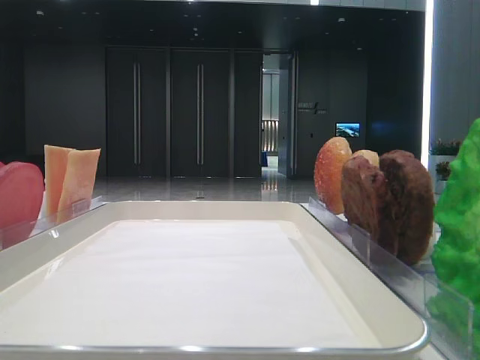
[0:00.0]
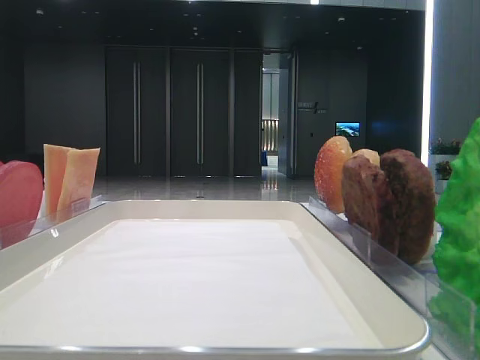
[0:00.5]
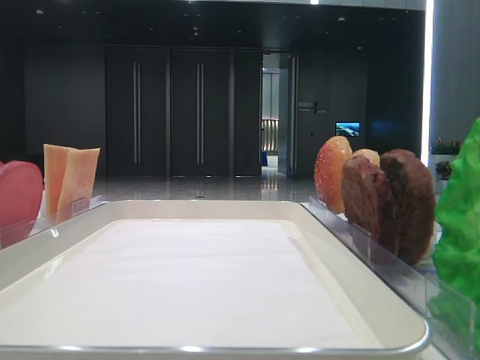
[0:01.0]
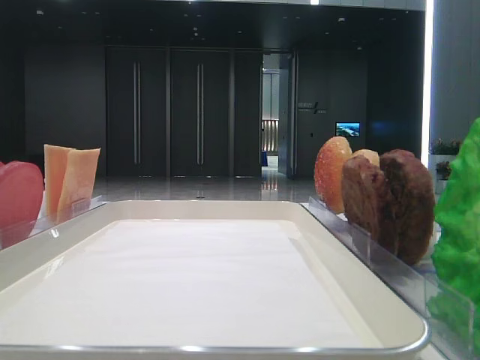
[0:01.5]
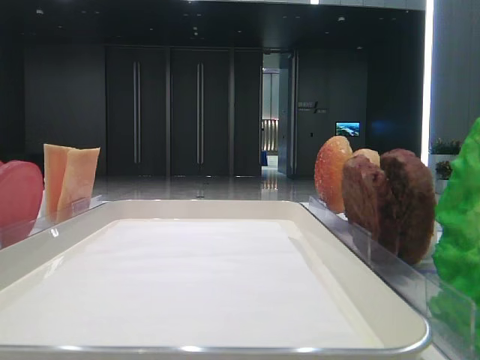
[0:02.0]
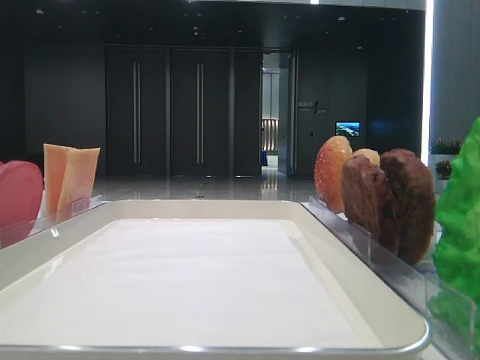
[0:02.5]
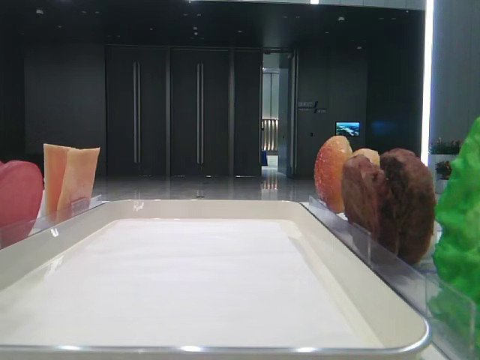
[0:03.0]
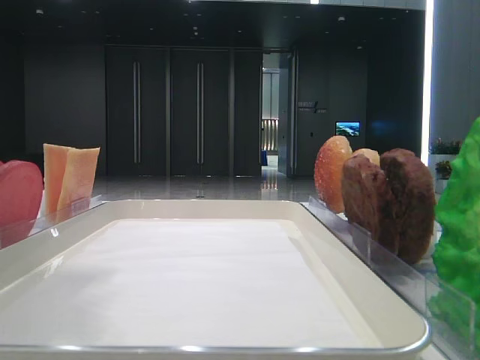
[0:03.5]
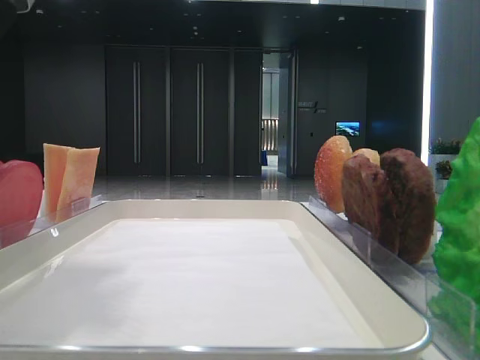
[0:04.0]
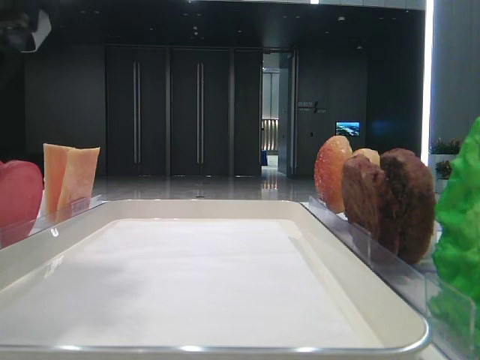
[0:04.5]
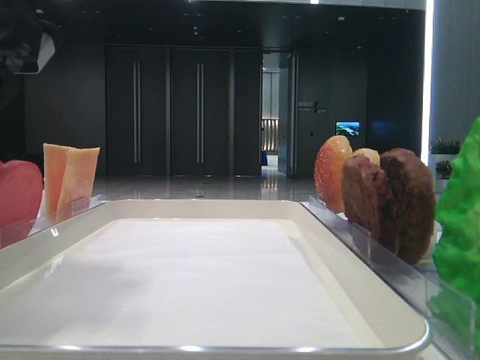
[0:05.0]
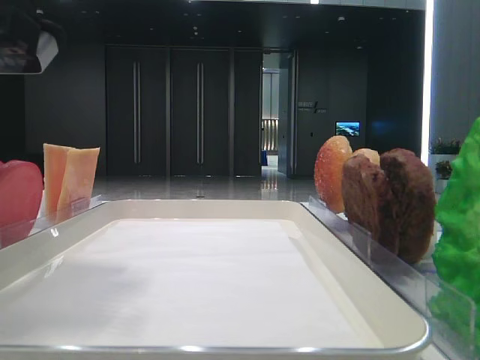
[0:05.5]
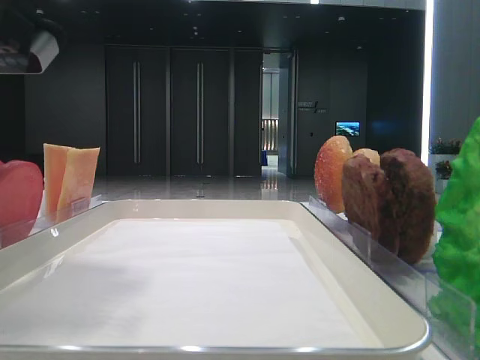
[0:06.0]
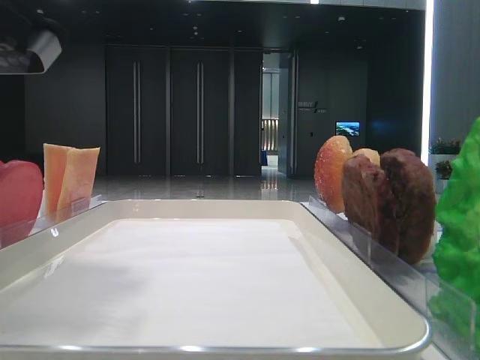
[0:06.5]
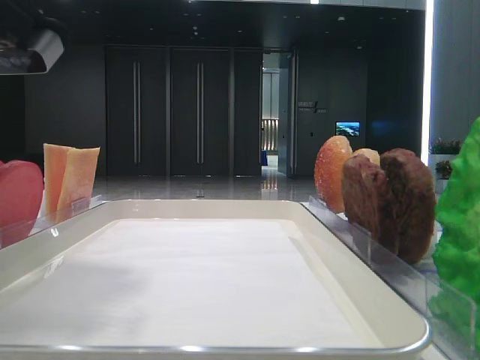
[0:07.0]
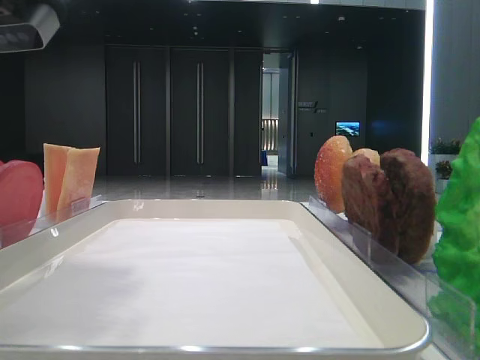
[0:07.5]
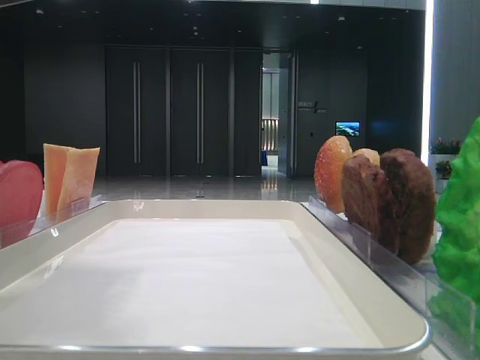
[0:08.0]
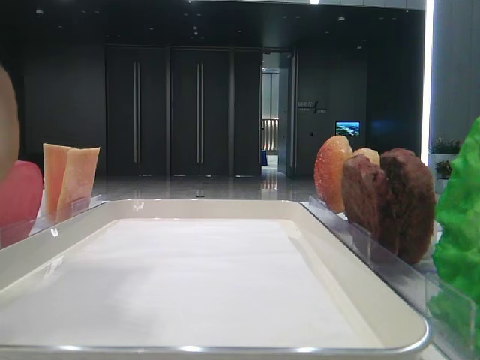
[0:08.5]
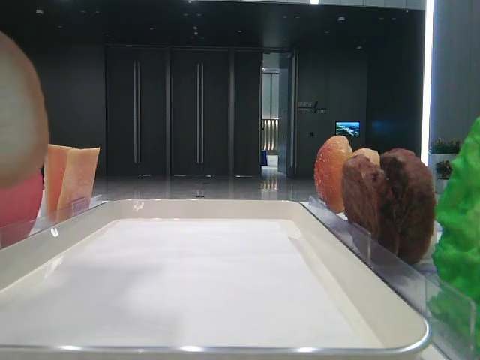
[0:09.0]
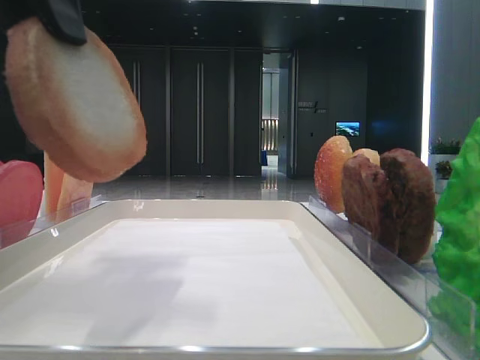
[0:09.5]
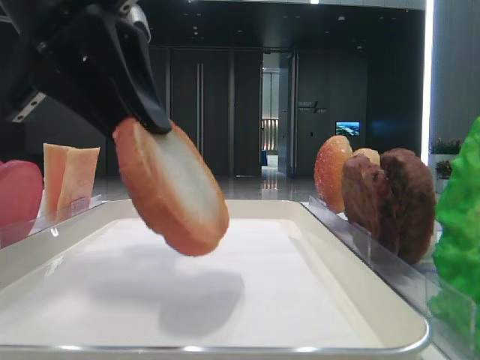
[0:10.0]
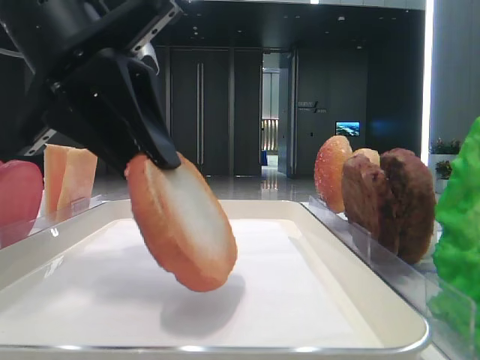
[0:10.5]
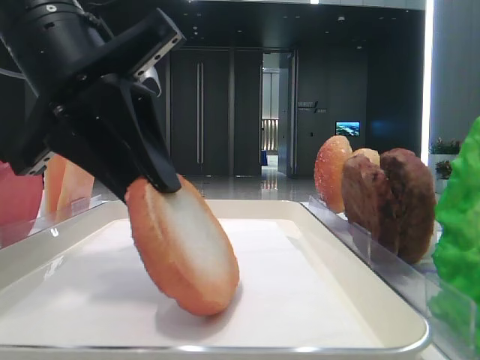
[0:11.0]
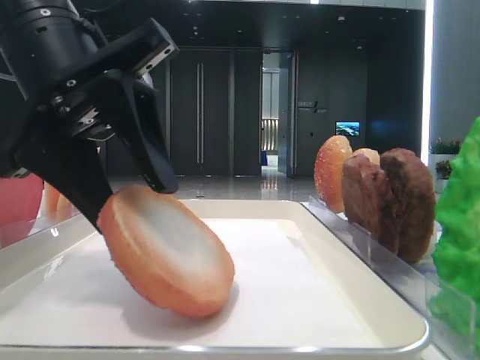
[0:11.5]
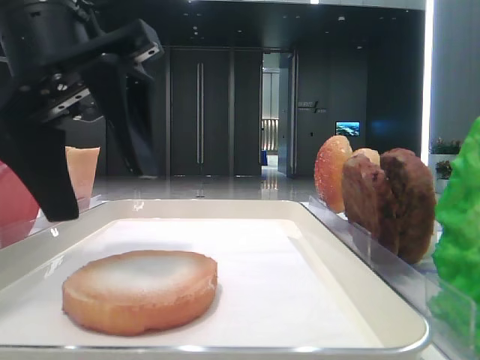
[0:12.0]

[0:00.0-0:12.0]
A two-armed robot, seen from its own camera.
Step, 0:00.0 to 0:07.0: Pick up the bottom bread with the left hand.
Step, 0:07.5 to 0:11.5: Place the bread on the tray with the left hand.
0:02.0 to 0:04.0: The left gripper is displaced to the right and downward by approximately 15 cm.
0:04.0 to 0:06.0: The left gripper closes its fingers.
0:08.0 to 0:10.0: The left gripper goes some 5 cm forward.
0:10.0 to 0:12.0: The left gripper opens.

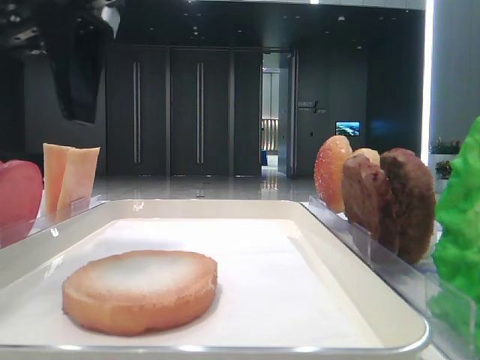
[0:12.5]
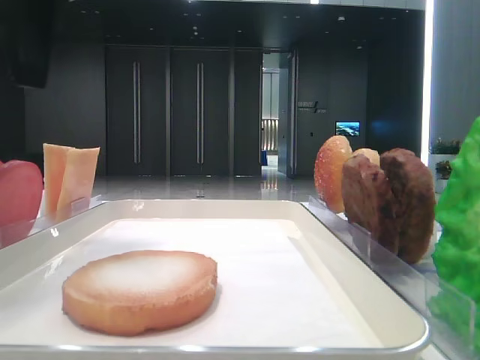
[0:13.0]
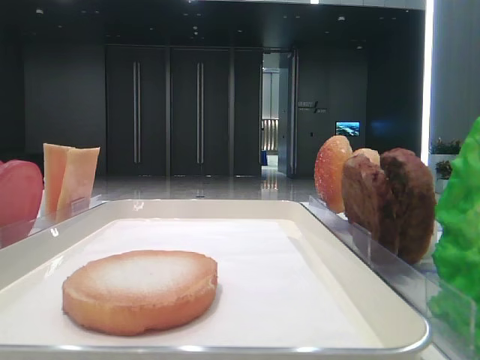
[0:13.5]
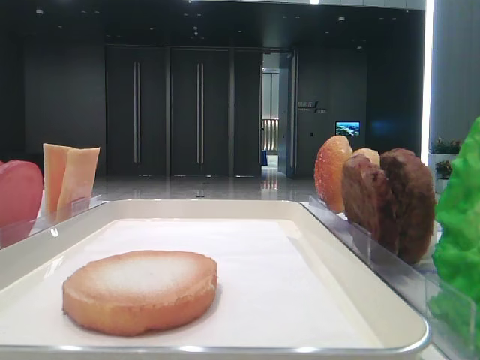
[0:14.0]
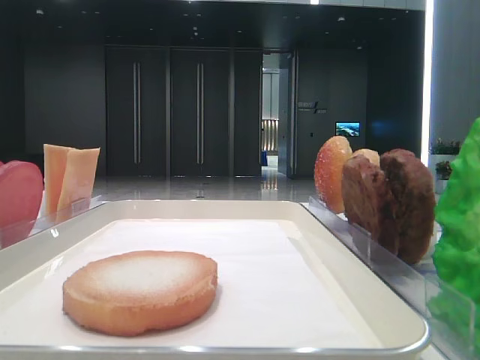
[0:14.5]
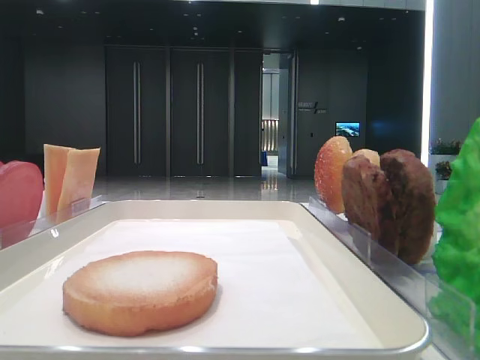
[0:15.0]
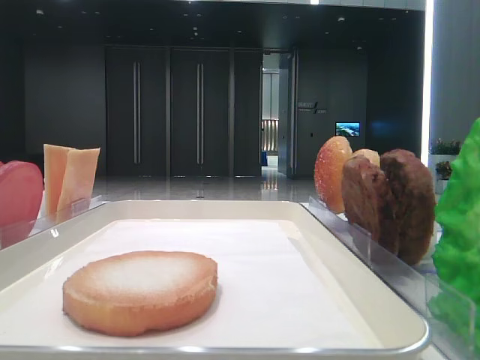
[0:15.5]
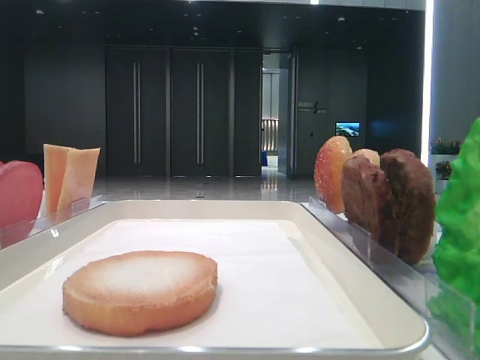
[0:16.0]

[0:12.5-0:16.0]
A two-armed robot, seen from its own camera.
0:12.5 to 0:14.5: The left gripper heads backward and to the left, covering some 30 cm.
